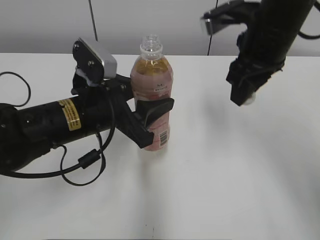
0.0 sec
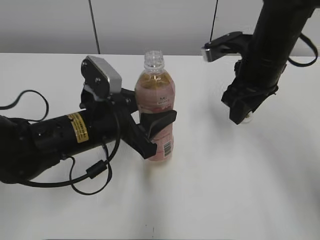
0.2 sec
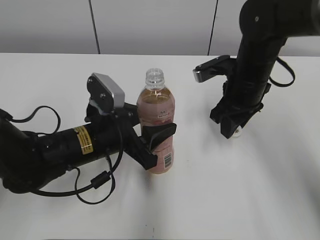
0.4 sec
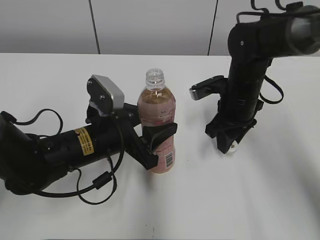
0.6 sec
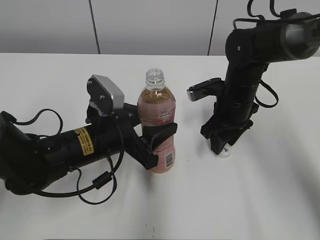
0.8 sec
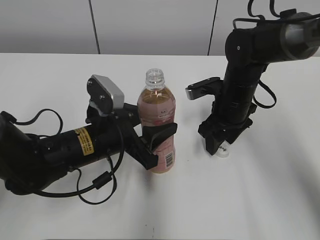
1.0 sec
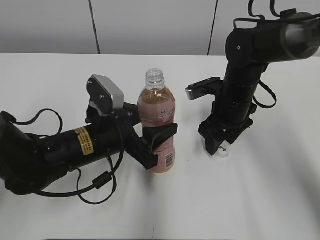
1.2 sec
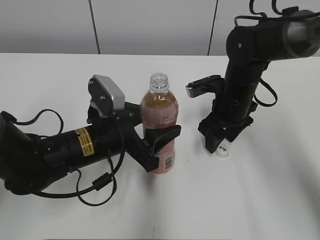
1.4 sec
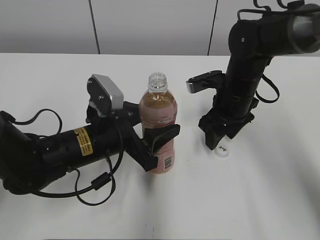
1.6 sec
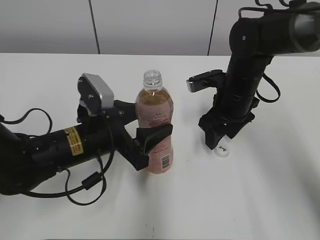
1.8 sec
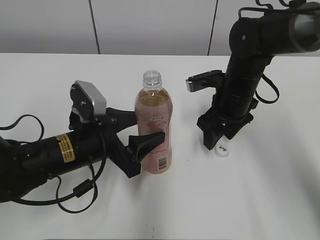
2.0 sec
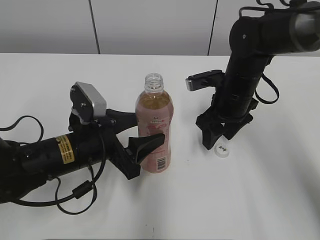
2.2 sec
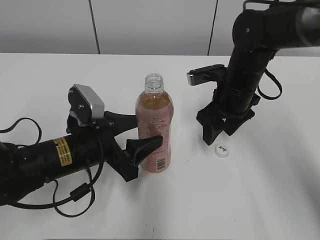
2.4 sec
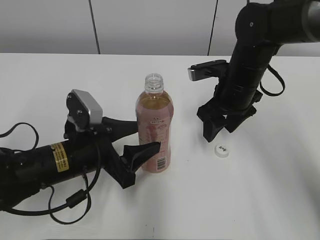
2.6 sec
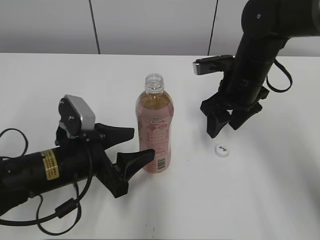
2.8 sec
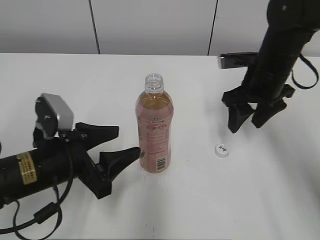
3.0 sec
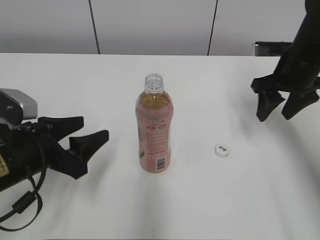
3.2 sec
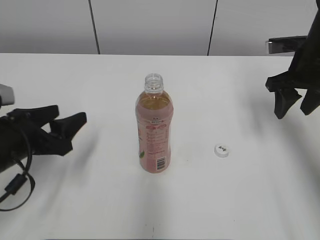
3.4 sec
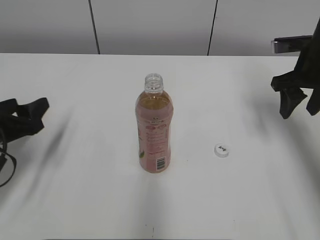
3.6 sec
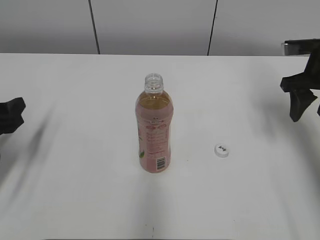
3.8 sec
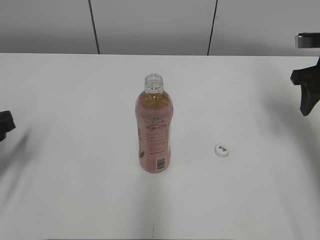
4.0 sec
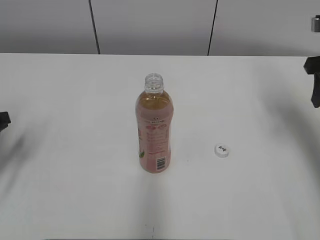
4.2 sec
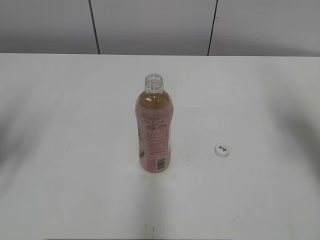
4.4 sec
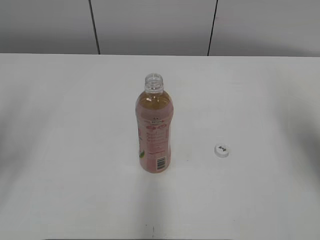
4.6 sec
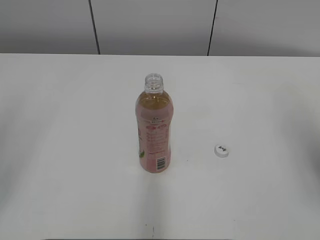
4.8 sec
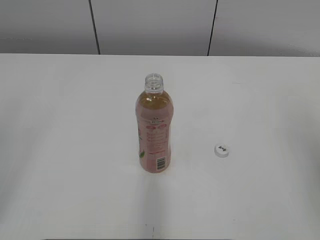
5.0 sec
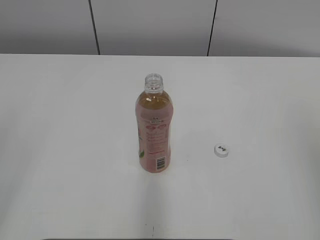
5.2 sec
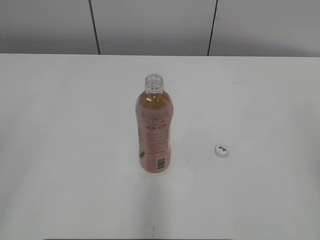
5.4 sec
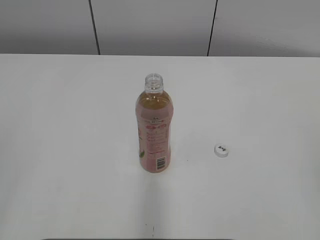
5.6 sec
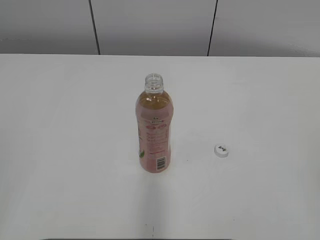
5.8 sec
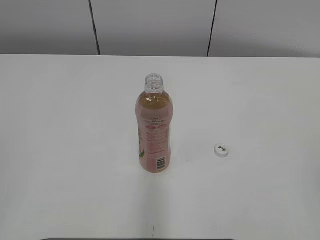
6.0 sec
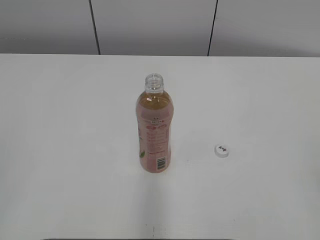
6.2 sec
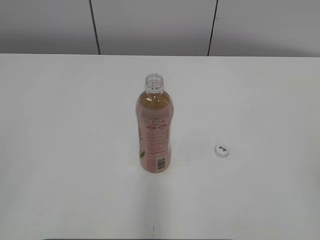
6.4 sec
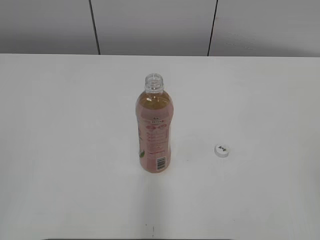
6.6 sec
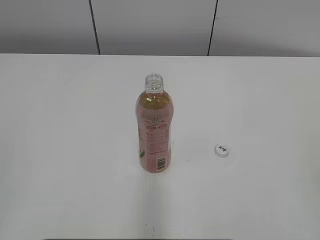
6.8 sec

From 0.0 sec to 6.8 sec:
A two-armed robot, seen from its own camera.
Step, from 1.0 sec to 2.2 sec: Place the Peach Oolong Tea with the left hand.
From 0.0 sec to 1.4 sec: The right gripper travels downward by approximately 15 cm, and opens up. The left gripper shifts about 5 cm downward.
From 1.4 sec to 2.8 sec: The left gripper shifts by about 5 cm.
From 2.8 sec to 4.0 sec: The left gripper travels to the left by some 15 cm. Meanwhile the right gripper moves to the right, about 15 cm.
From 4.0 sec to 5.4 sec: The left gripper moves backward and upward, about 25 cm. The right gripper is displaced backward by roughly 30 cm.

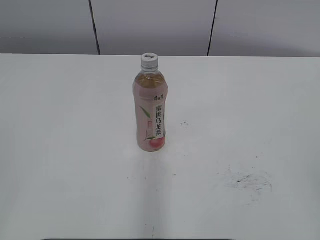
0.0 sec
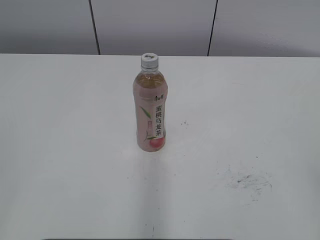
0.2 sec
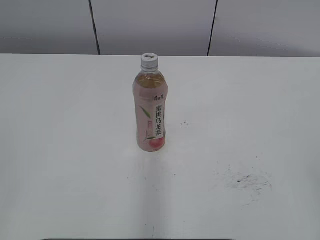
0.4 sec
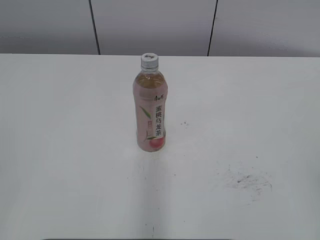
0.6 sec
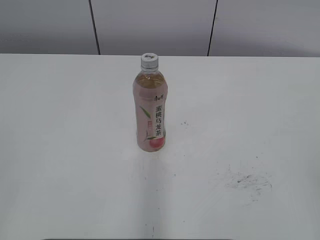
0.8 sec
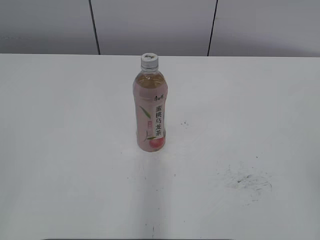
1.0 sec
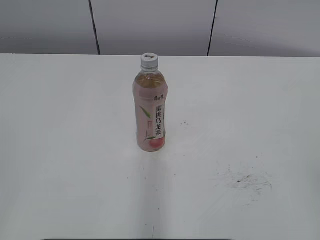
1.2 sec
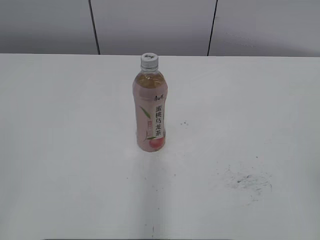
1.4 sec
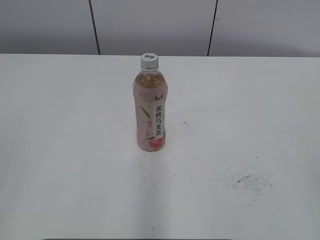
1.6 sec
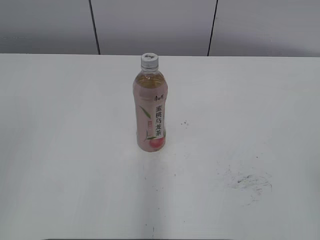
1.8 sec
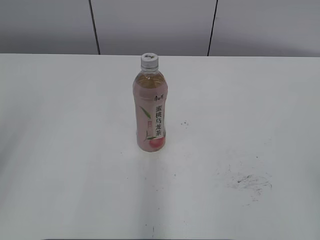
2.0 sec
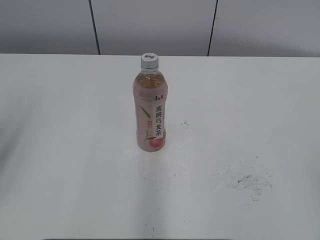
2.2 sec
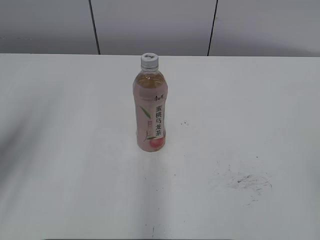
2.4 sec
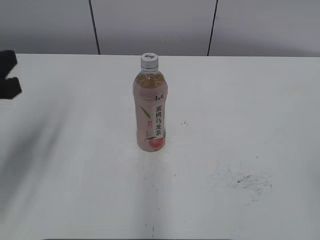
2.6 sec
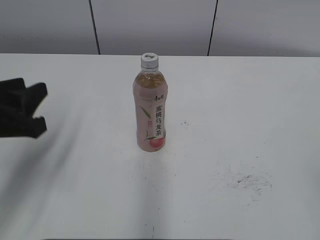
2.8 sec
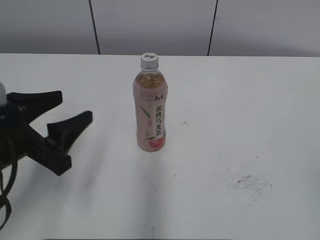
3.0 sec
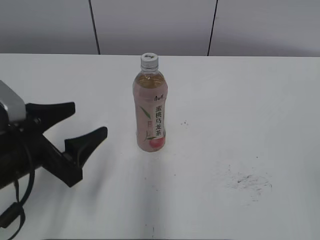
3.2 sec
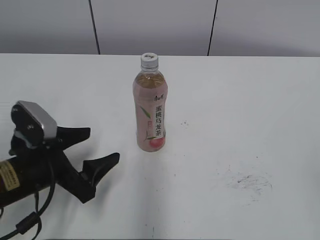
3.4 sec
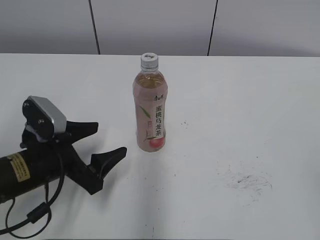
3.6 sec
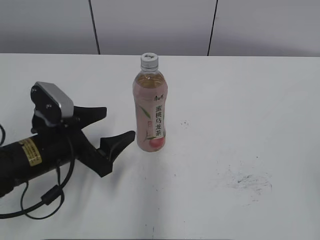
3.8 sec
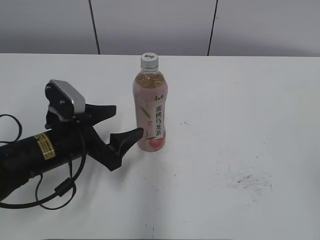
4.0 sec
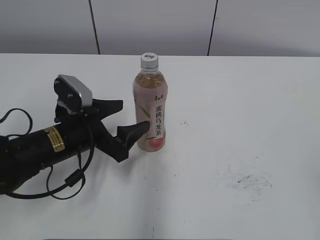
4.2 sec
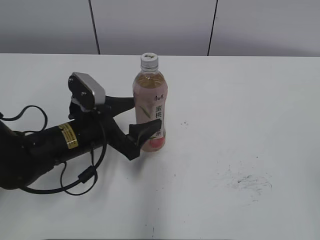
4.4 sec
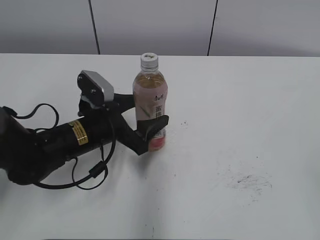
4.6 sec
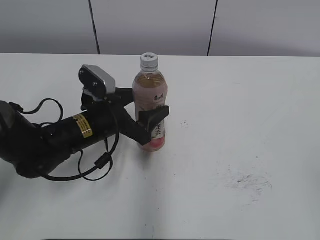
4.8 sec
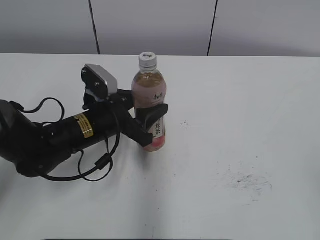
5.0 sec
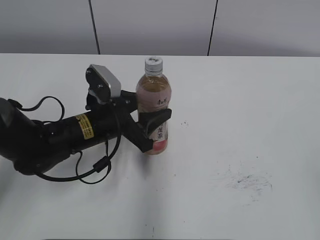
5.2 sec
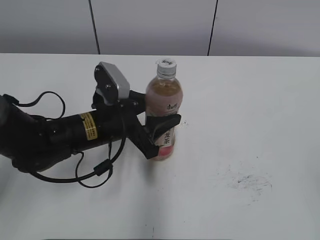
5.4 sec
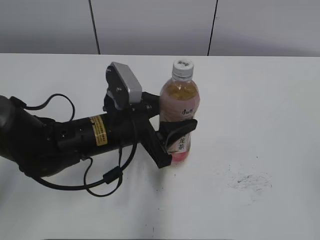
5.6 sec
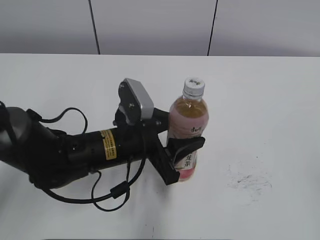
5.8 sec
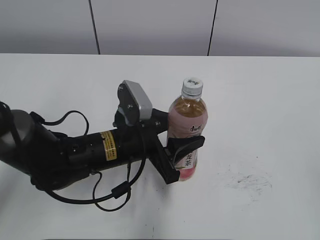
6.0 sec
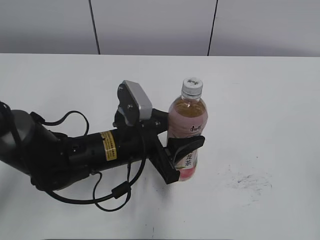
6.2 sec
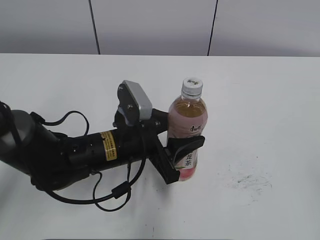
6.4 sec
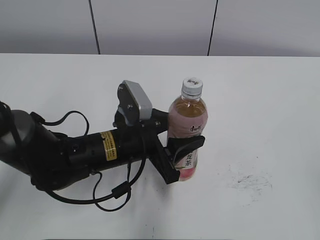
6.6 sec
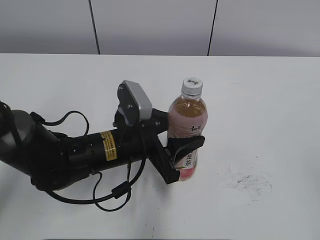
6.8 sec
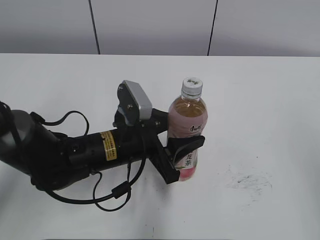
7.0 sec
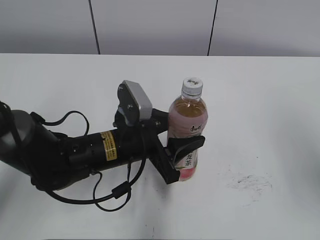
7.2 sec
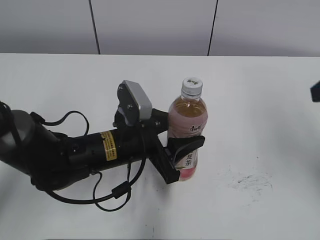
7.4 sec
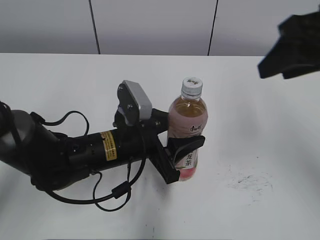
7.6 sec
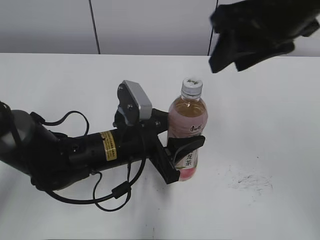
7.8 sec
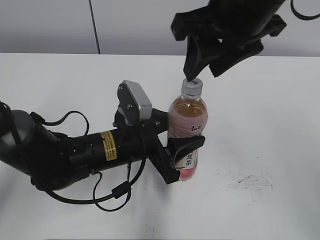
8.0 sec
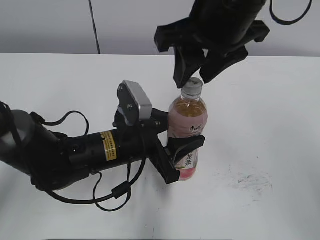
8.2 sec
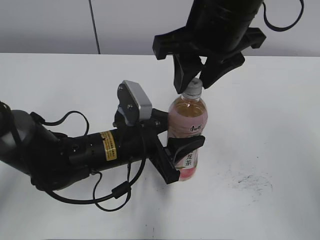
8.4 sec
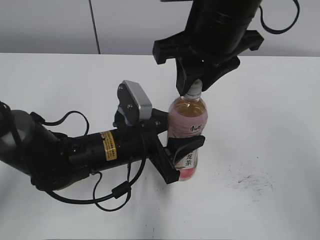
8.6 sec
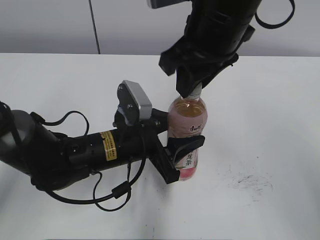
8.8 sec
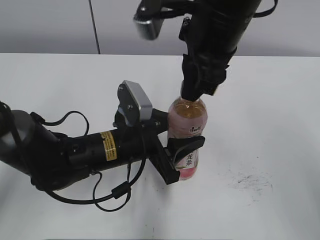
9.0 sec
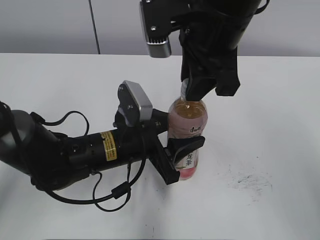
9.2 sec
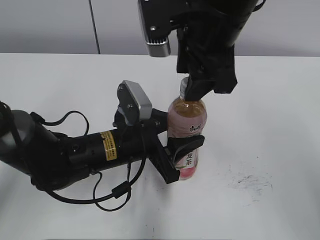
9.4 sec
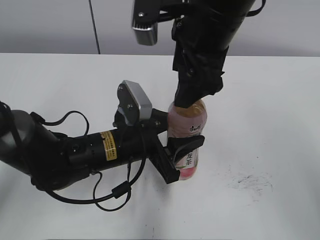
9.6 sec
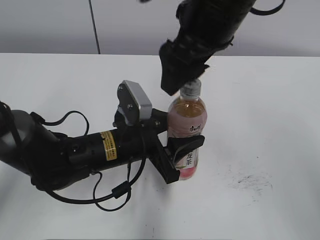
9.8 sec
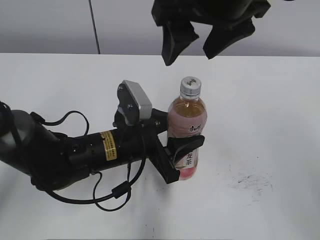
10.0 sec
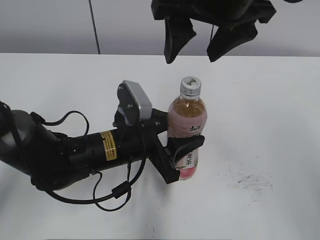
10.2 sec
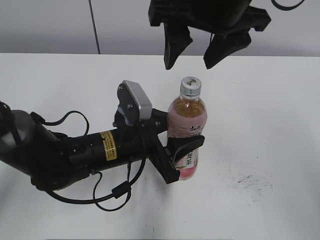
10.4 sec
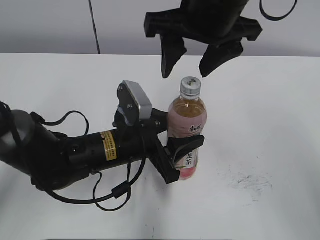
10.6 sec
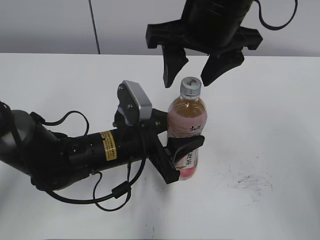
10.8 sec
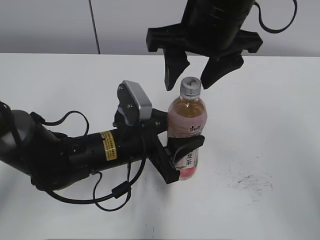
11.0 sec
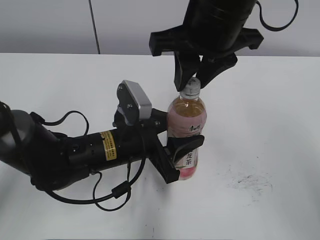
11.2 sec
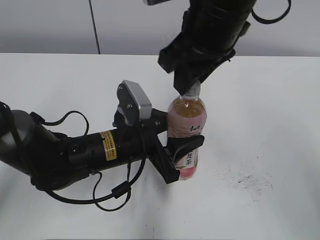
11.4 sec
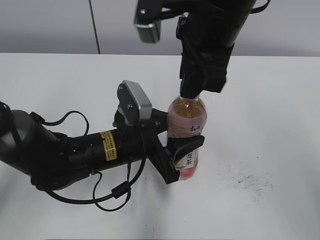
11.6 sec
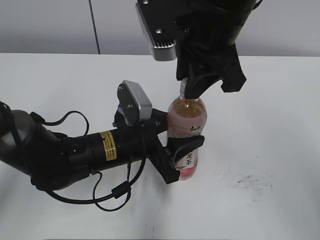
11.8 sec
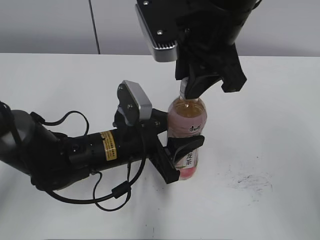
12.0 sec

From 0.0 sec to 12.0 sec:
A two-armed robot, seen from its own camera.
Step, from 0.0 sec to 5.2 sec: Grab the Peach Oolong Tea with the left hand.
Step, from 5.6 sec to 5.8 sec: Move the Peach Oolong Tea from left to right.
From 1.6 sec to 3.0 sec: The left gripper is displaced forward, downward and to the right by roughly 25 cm, and opens.
From 3.0 sec to 4.4 sec: The left gripper moves forward, to the right and downward, about 15 cm, and opens.
From 4.4 sec to 6.0 sec: The left gripper goes some 5 cm to the right, and closes.
From 6.0 sec to 7.6 sec: The right gripper is displaced forward by about 25 cm, and closes its fingers.
From 7.6 sec to 9.0 sec: The right gripper goes about 15 cm to the left.
From 9.0 sec to 10.4 sec: The right gripper opens its fingers.
From 10.4 sec to 12.0 sec: The right gripper closes up.

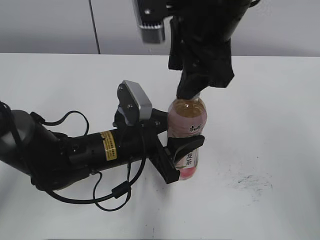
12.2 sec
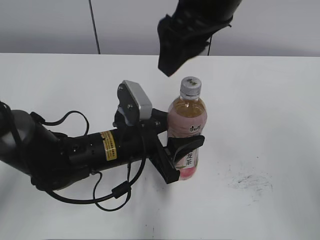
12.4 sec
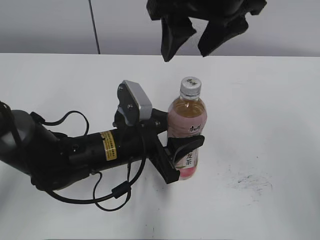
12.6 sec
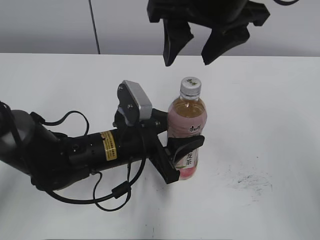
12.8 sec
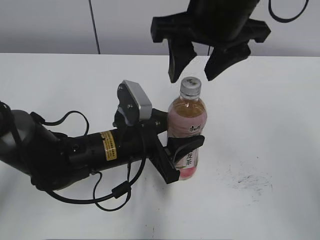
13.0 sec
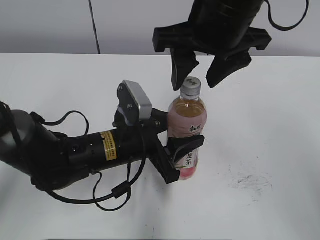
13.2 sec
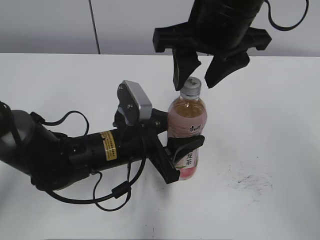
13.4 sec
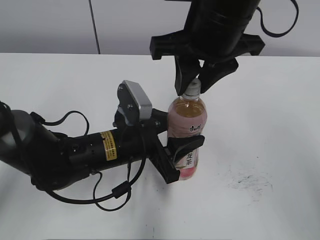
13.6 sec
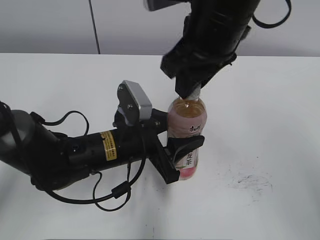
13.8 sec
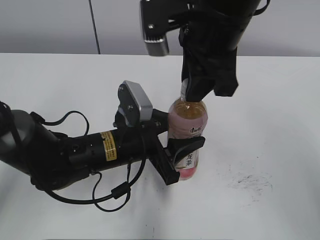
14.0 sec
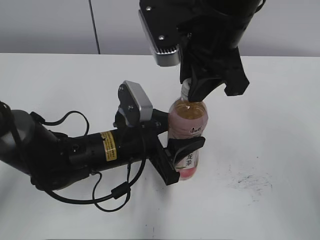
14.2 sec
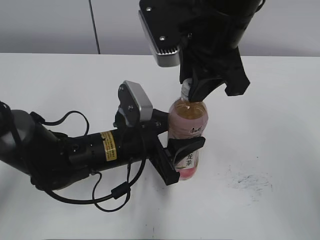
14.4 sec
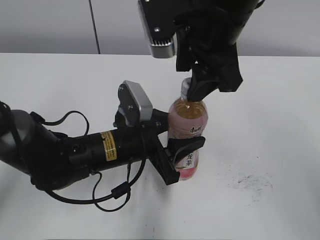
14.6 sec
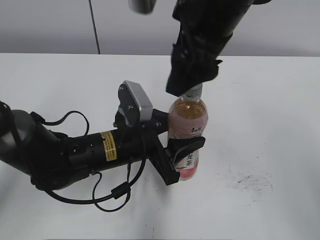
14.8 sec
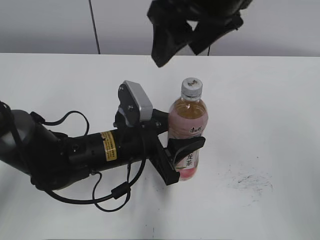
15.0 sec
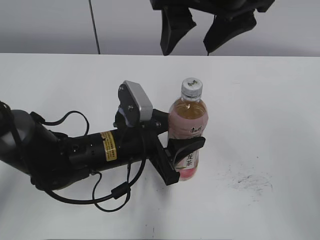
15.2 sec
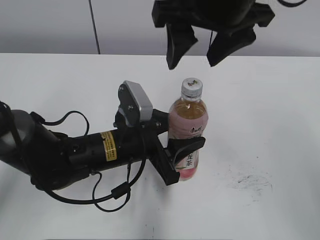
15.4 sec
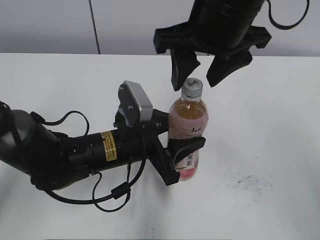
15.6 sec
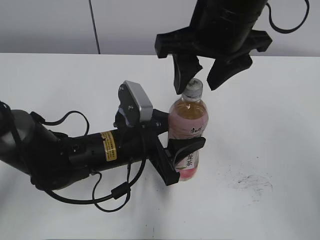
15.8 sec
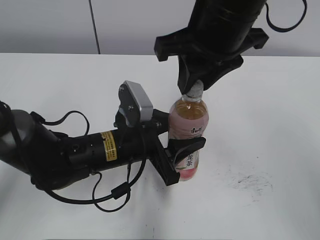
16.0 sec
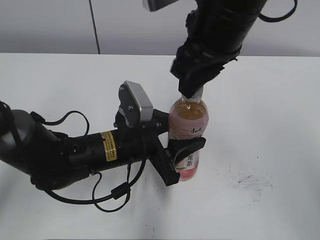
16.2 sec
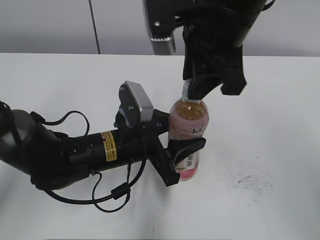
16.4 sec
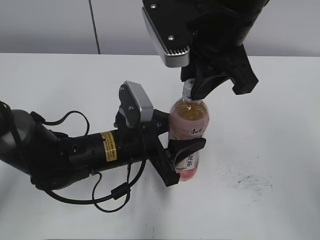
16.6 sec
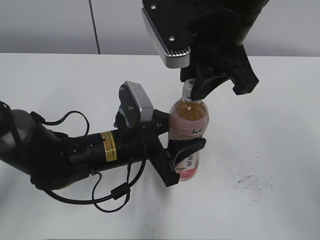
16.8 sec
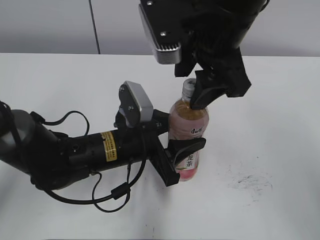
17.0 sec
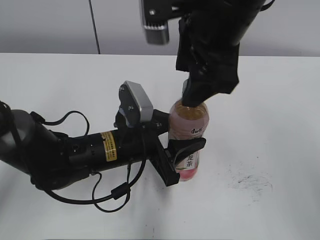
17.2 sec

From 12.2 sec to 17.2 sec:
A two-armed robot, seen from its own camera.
From 12.2 sec to 13.8 sec: The right gripper closes its fingers.
From 13.8 sec to 15.6 sec: The right gripper opens up.
From 15.6 sec to 17.2 sec: The right gripper closes, then opens again.
